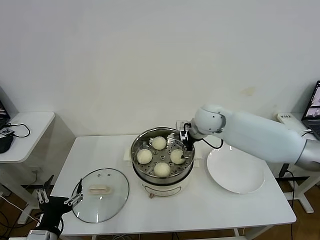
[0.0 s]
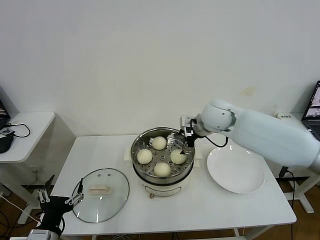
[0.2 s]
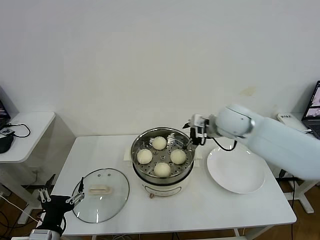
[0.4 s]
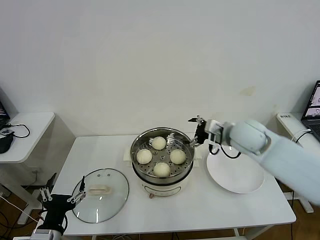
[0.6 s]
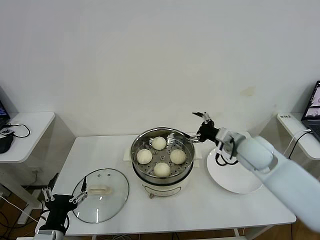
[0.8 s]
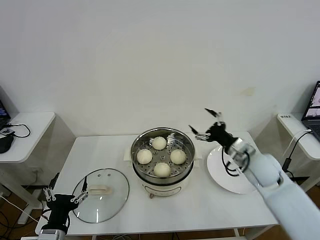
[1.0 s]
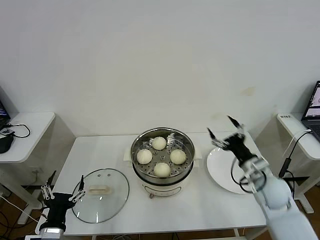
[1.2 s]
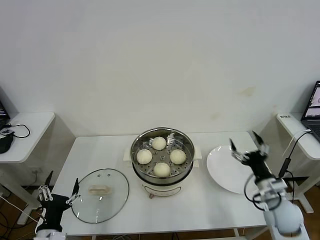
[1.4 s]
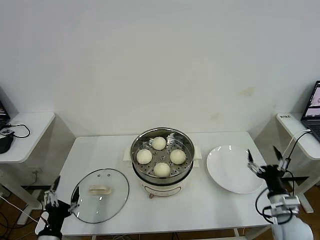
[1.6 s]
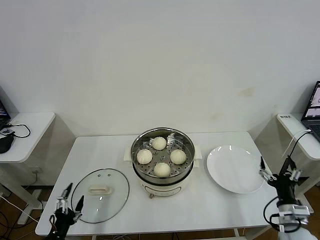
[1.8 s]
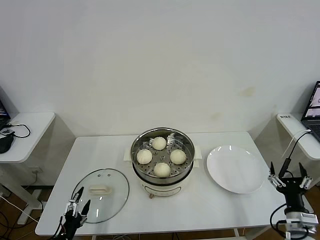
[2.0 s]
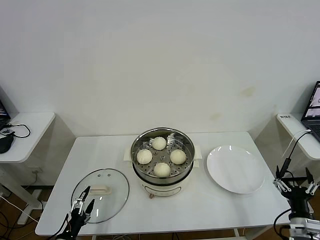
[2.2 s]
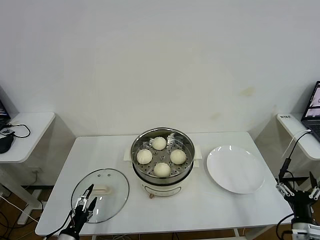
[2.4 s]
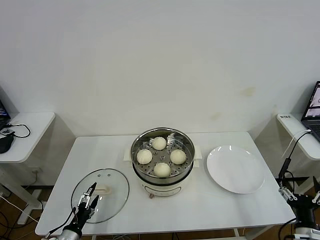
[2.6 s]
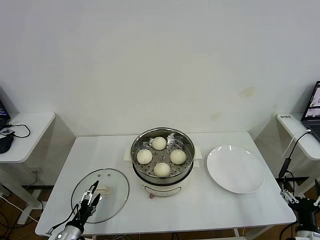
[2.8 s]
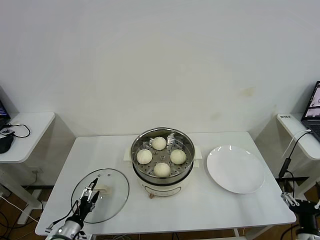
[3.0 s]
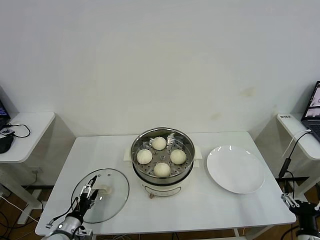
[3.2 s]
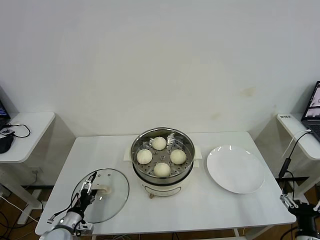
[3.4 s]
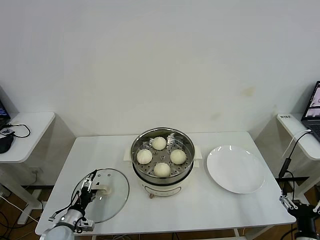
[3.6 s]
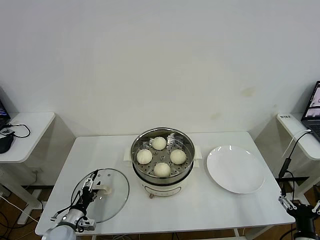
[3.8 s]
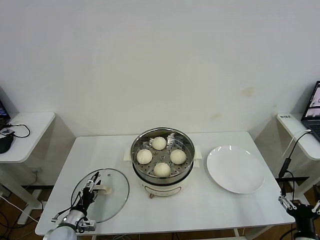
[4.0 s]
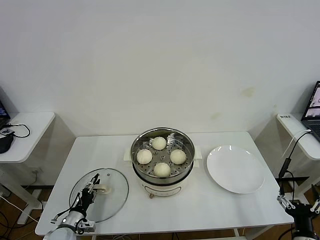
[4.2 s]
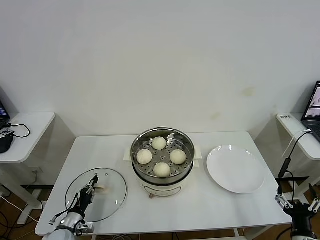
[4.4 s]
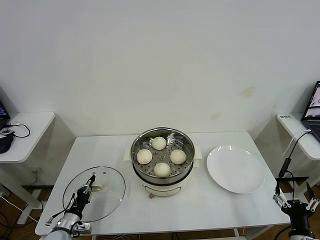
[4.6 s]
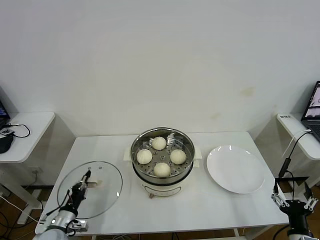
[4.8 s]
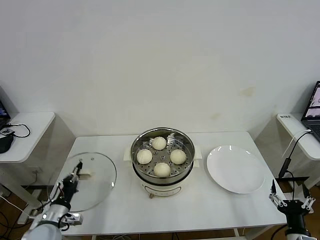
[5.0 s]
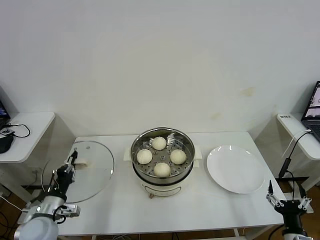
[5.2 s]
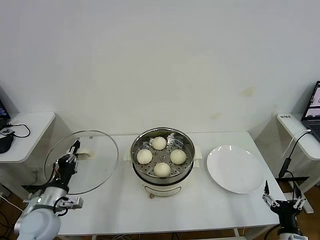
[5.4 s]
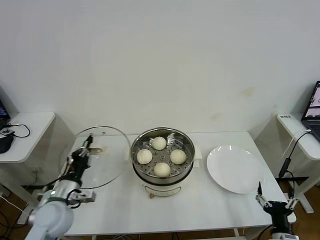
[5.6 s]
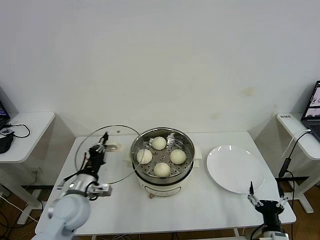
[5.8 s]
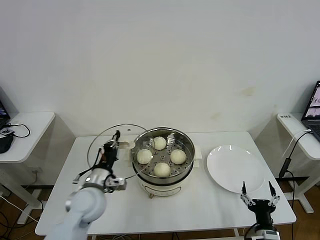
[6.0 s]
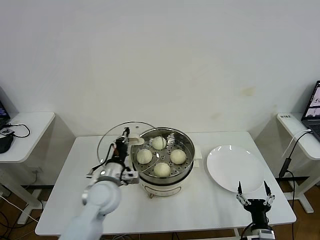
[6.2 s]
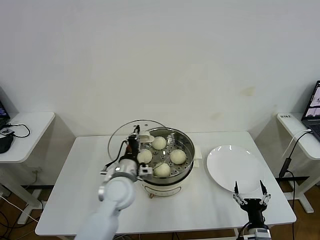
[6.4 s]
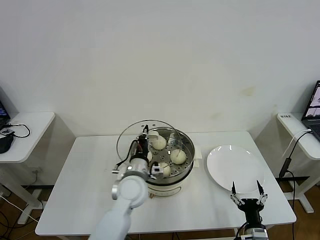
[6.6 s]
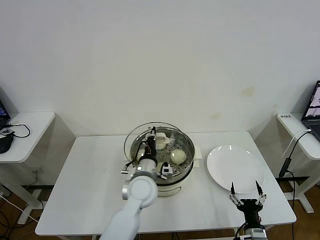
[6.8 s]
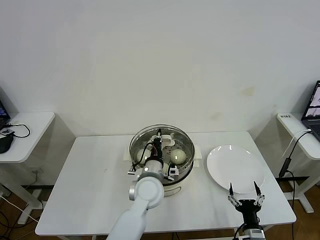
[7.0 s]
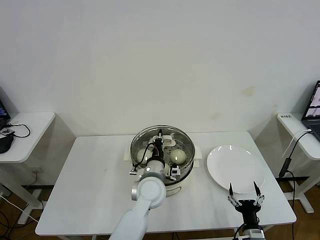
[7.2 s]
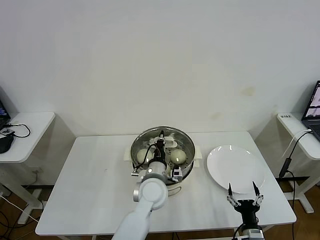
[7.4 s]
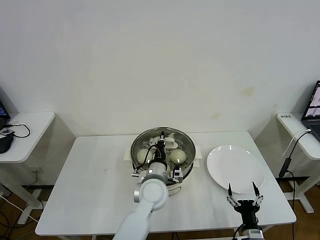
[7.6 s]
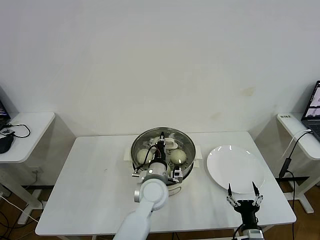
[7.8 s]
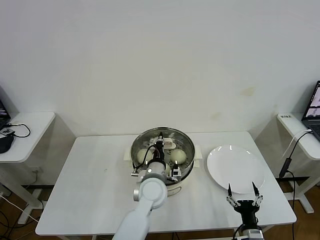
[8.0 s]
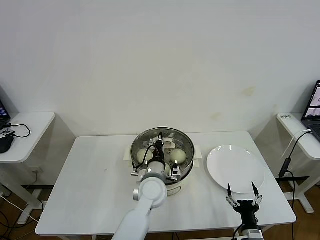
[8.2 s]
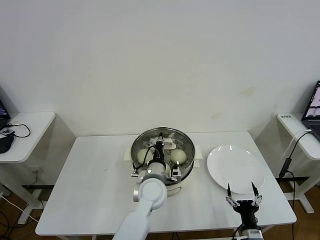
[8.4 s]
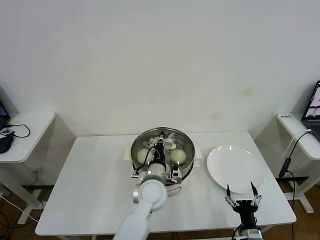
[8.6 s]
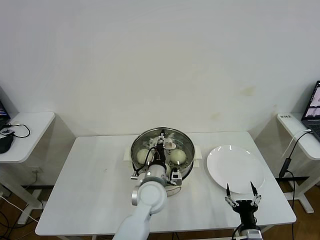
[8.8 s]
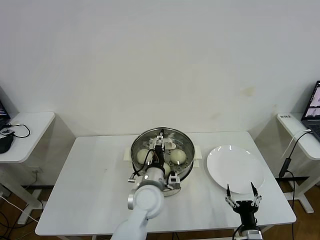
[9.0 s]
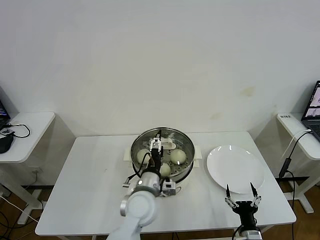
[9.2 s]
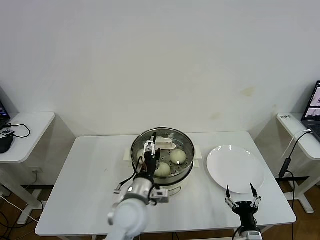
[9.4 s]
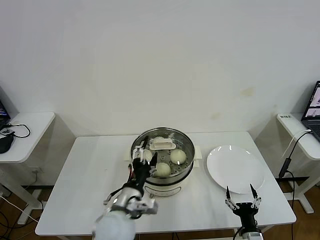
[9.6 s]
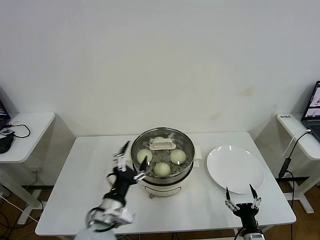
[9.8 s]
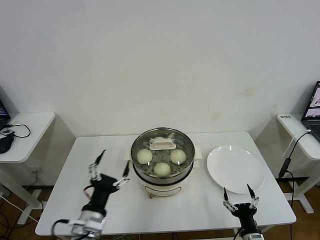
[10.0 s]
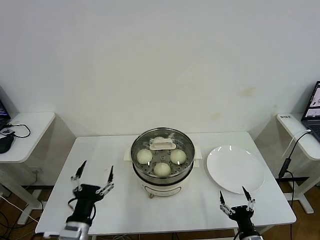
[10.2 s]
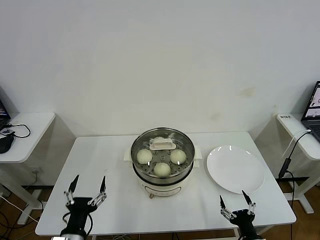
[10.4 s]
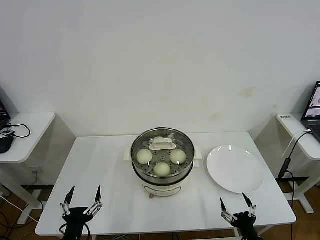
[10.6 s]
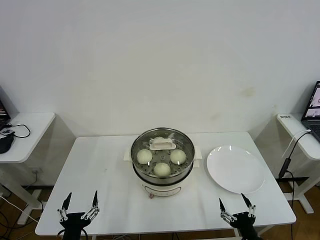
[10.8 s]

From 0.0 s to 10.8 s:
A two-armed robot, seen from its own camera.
Task of the whole recording: take steamed baozi put them in steamer then cover it.
Step, from 0.0 s to 4.6 s: Grasp the pot lid with left gripper.
Step, from 4.8 s to 9.0 s: Place the pot lid on the steamer with left gripper.
From 0.0 s to 1.6 s: The right gripper shifts roughly 40 cm backward, to the right and downward; the left gripper is displaced downward by roughly 10 cm.
From 1.6 s to 3.0 s: The left gripper goes roughly 10 cm downward and forward; the right gripper goes approximately 10 cm backward.
From 3.0 s to 4.6 s: The left gripper closes its fingers.
From 4.6 s to 6.2 s: The left gripper goes about 25 cm upward, to the right and forward, while the right gripper heads to the left and downward, covering some 10 cm.
From 6.2 s to 7.8 s: The left gripper heads to the right, covering about 15 cm.
From 7.8 s to 9.2 s: The left gripper opens up.
From 9.2 s to 10.8 s: The right gripper shifts by some 5 cm. The left gripper shifts roughly 30 cm to the left and backward.
